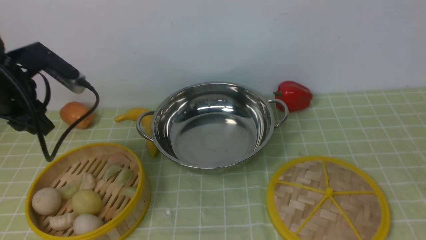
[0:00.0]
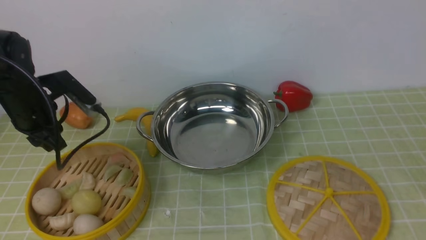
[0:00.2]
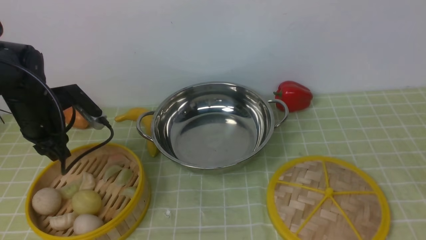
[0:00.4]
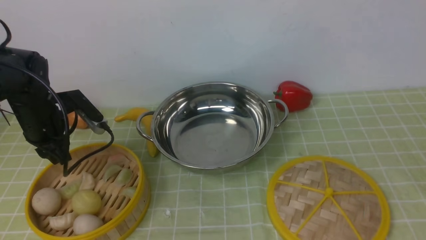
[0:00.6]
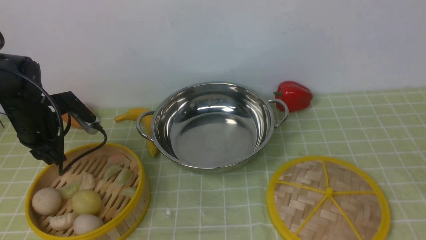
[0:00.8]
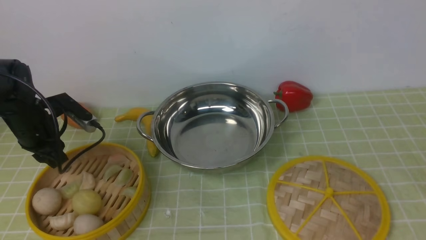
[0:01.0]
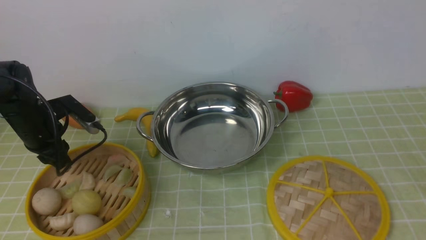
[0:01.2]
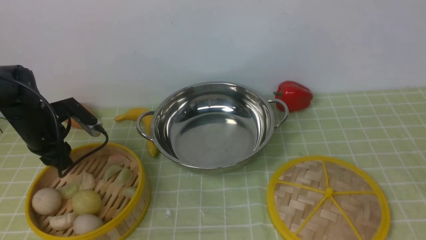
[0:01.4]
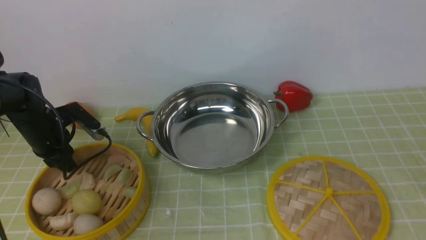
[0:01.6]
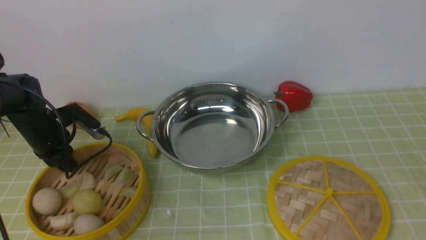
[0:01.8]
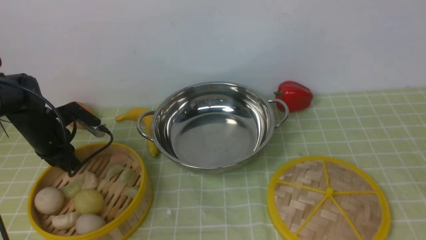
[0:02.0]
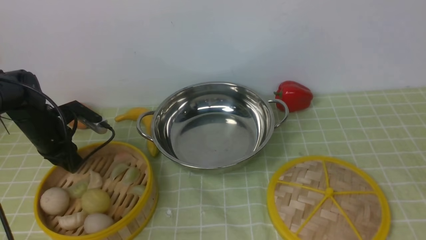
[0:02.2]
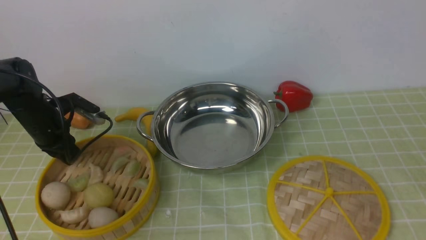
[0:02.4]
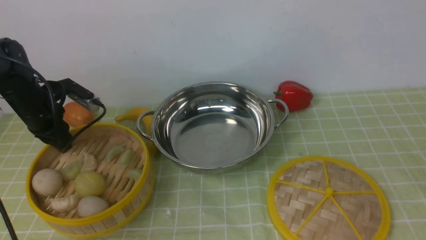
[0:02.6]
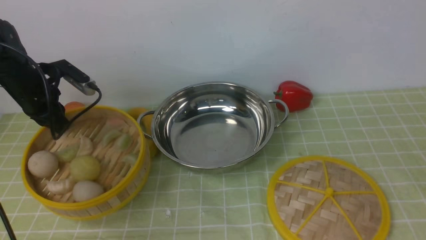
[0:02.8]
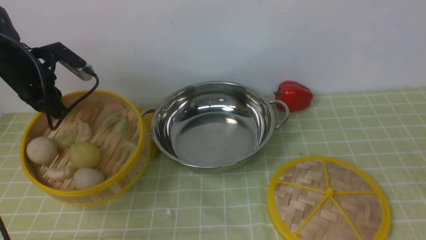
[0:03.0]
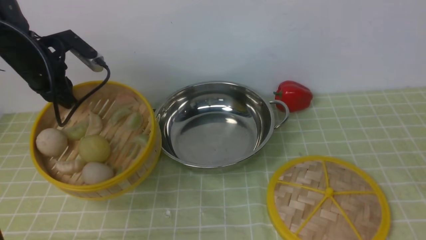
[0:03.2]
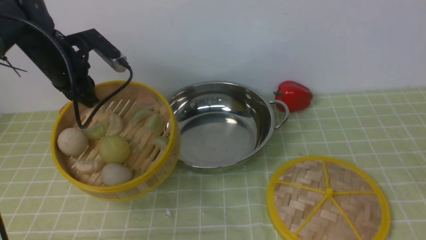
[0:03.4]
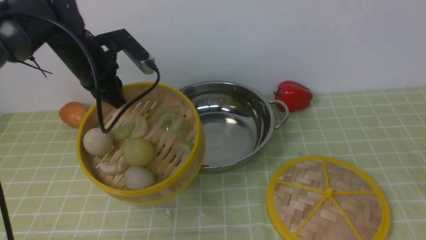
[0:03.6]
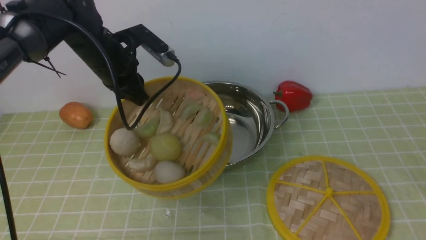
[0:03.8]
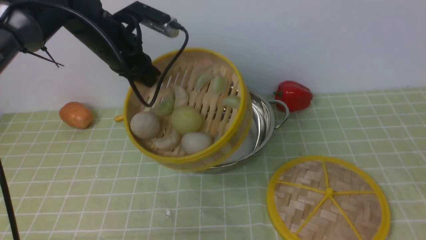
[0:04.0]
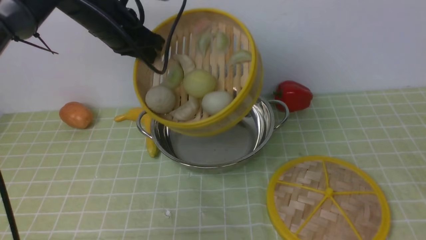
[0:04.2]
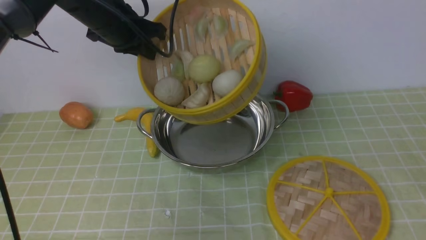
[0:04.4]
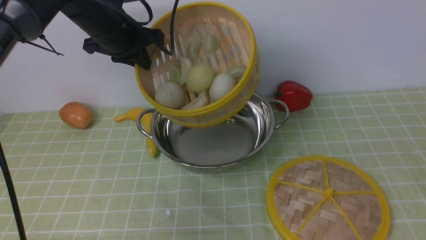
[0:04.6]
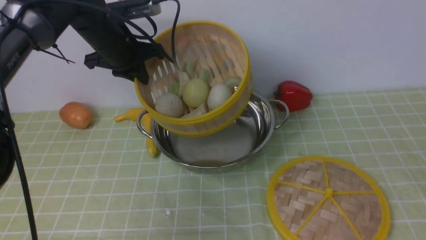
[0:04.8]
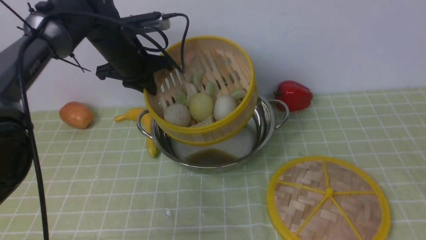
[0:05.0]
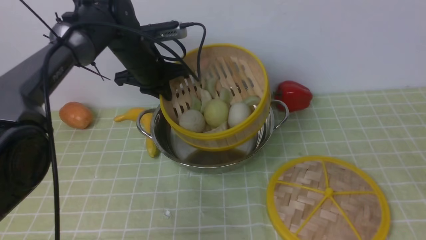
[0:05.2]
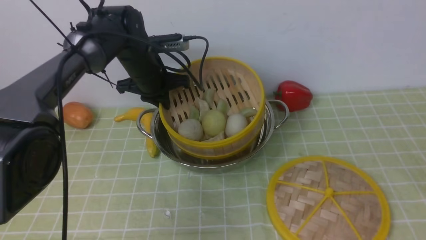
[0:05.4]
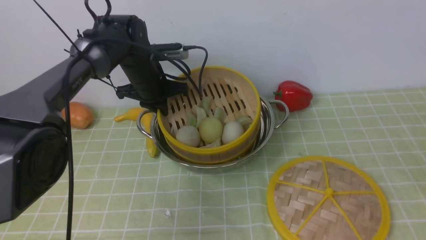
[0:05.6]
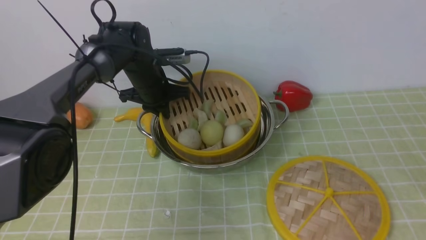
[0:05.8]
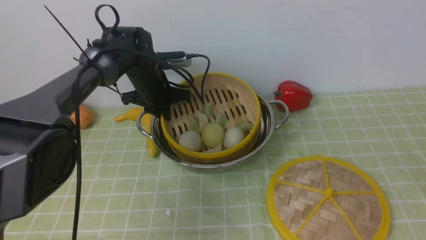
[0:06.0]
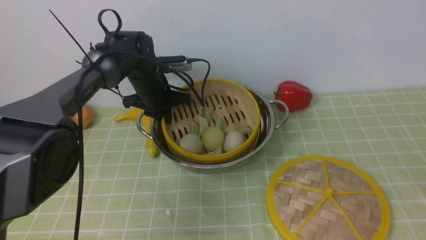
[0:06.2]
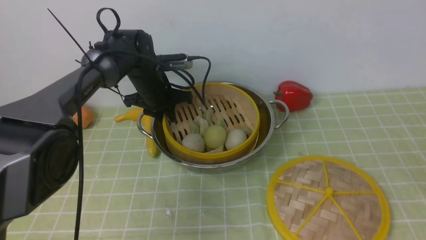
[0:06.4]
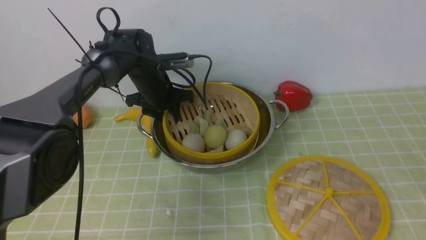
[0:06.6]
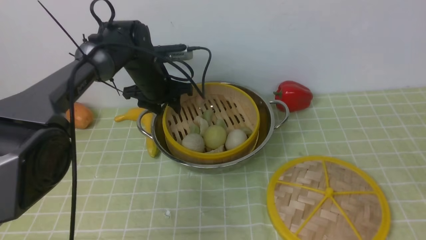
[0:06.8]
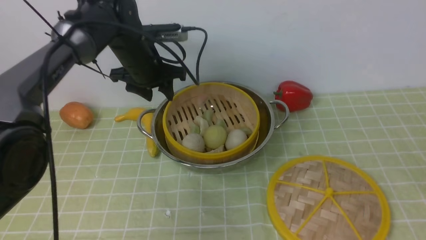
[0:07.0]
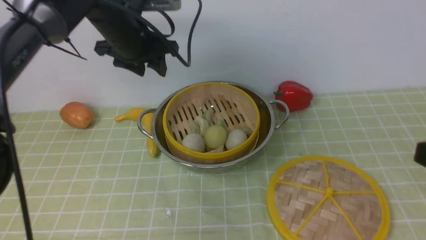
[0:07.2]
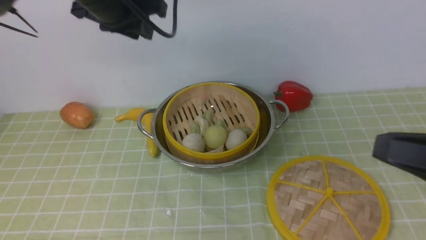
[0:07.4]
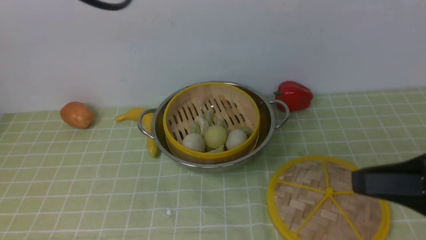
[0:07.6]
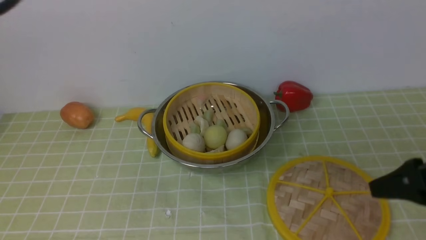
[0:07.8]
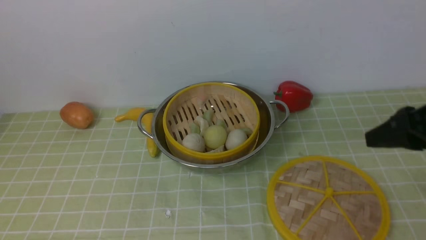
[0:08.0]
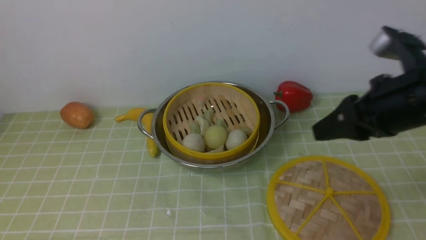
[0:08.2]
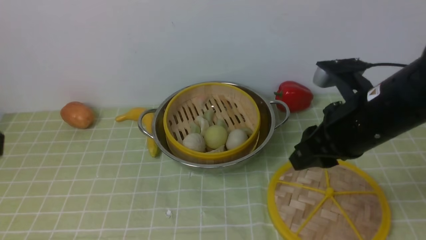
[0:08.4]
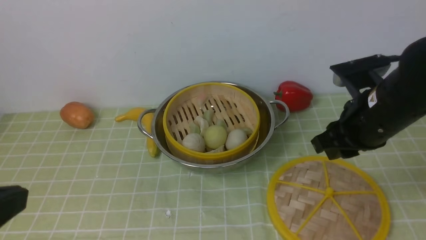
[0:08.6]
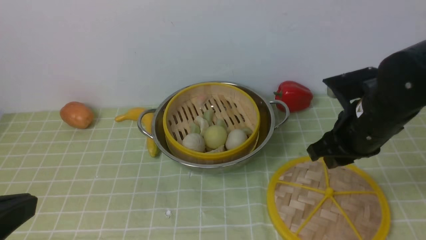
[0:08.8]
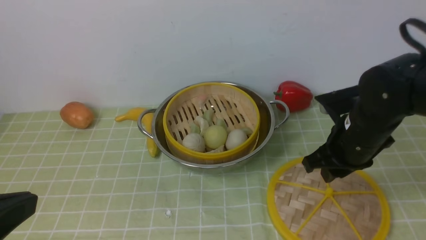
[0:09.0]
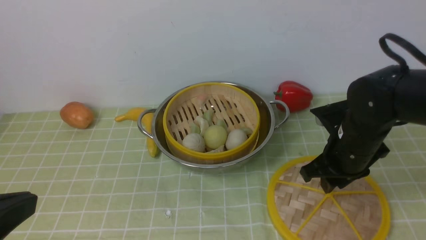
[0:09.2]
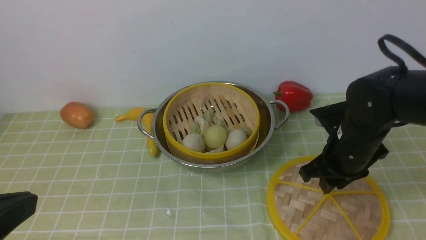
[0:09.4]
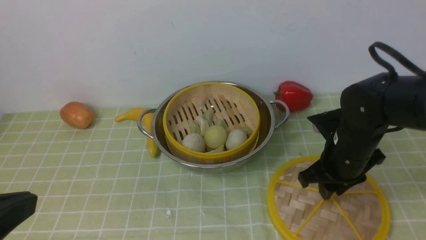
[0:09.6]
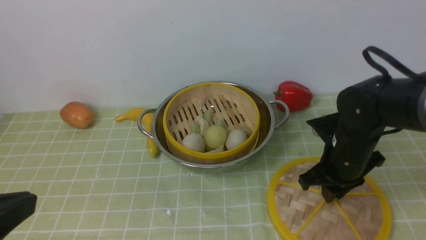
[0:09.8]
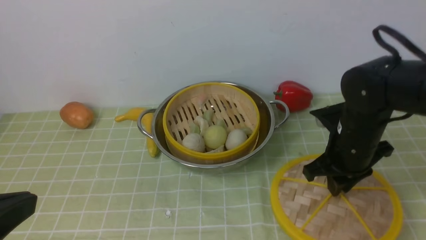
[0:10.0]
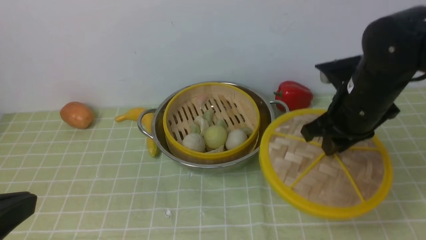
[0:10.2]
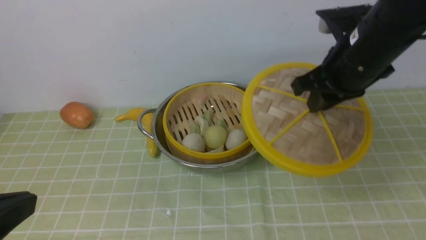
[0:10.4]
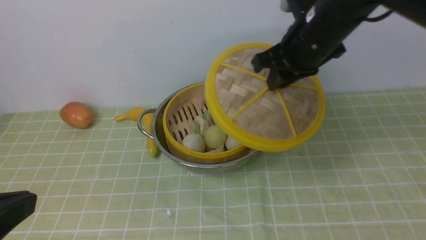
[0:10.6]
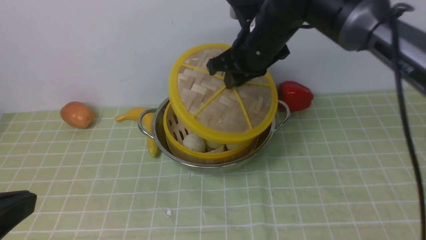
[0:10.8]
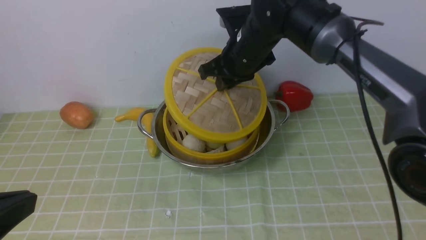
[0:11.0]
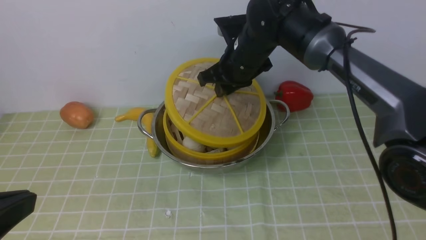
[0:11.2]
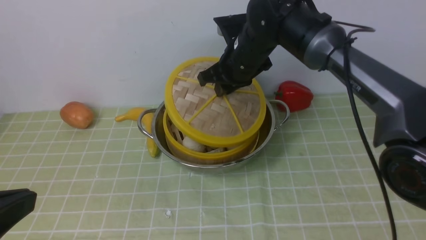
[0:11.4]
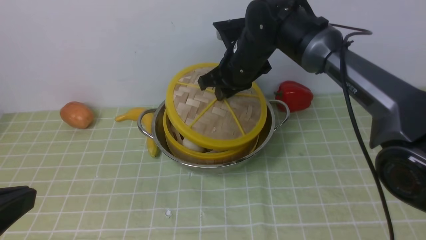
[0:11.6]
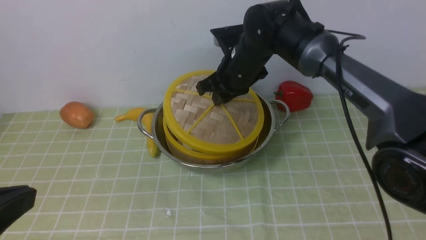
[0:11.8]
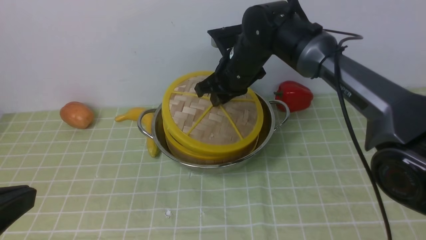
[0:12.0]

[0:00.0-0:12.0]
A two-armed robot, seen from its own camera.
Task of the whole recording: place the steamer in the pot on the green tablecloth, and put the lid on the steamer.
Step, 0:00.0 to 0:02.8: use the left arm to lift the steamer closest to it.
Step, 0:03.0 to 0:07.0: use the left arm to put the steamer into the iron steamer pot in the middle.
Step, 0:07.2 to 0:10.4: use the right arm to lift the lid of the steamer.
0:00.0 to 0:01.6: The left gripper travels downward by approximately 15 cm.
0:01.6 to 0:03.0: The left gripper moves upward, approximately 10 cm.
0:03.0 to 0:04.4: The left gripper travels to the right and upward by some 15 cm.
0:04.4 to 0:06.0: The left gripper goes approximately 15 cm downward.
0:06.0 to 0:07.6: The left gripper shifts some 35 cm upward and backward, and opens, then closes once more. Meanwhile the right gripper moves some 5 cm.
0:07.6 to 0:09.0: The left gripper goes some 30 cm backward and downward; the right gripper is displaced forward, downward and to the left by about 20 cm.
0:09.0 to 0:10.4: The right gripper heads upward, covering roughly 10 cm.
0:10.4 to 0:12.0: The right gripper shifts approximately 15 cm to the left, forward and downward.

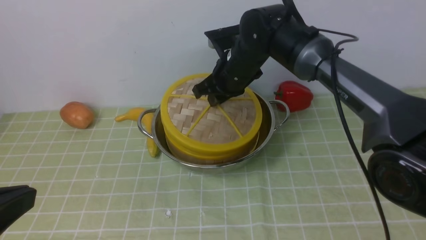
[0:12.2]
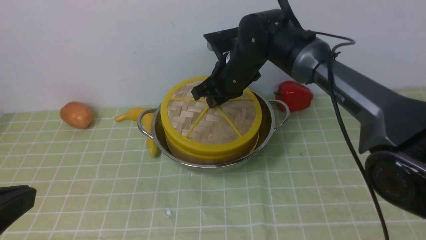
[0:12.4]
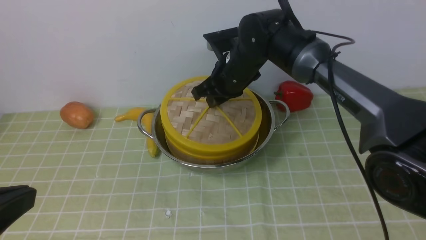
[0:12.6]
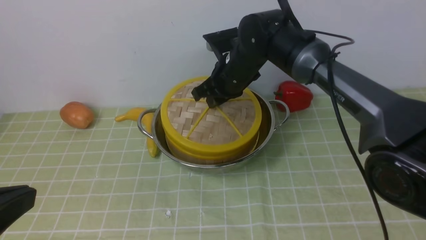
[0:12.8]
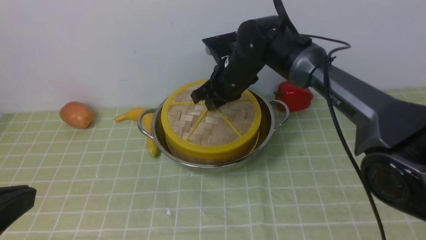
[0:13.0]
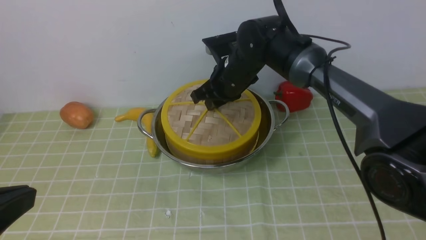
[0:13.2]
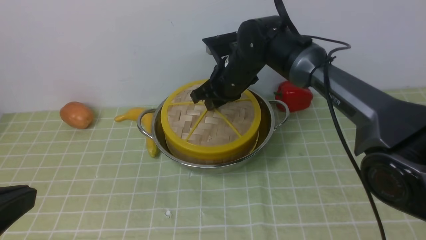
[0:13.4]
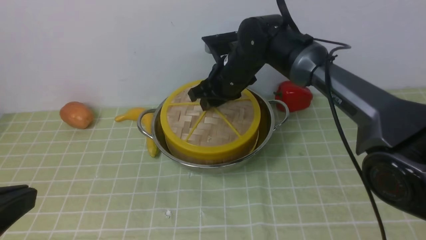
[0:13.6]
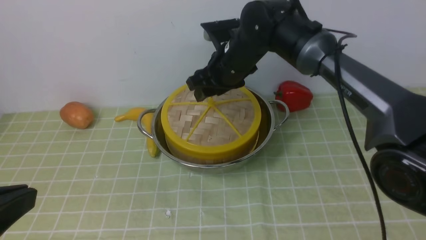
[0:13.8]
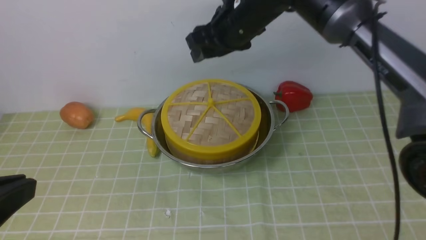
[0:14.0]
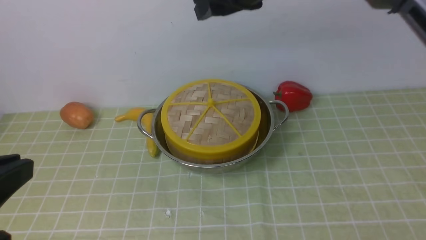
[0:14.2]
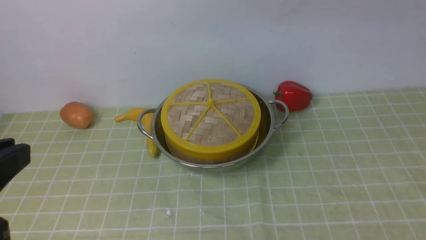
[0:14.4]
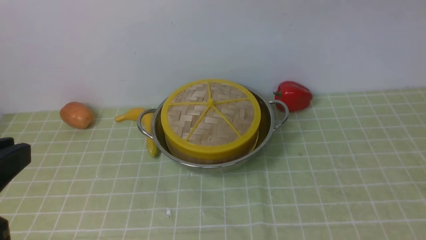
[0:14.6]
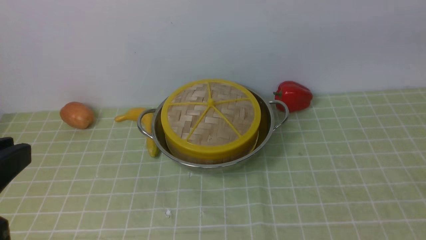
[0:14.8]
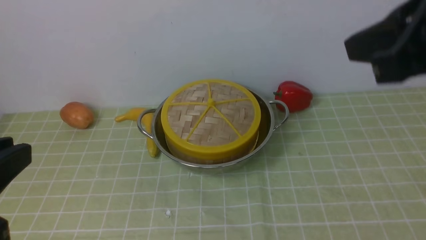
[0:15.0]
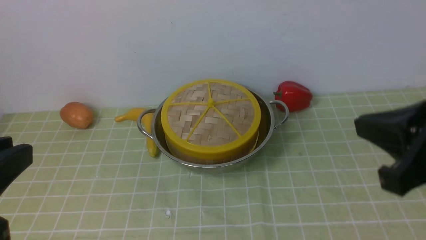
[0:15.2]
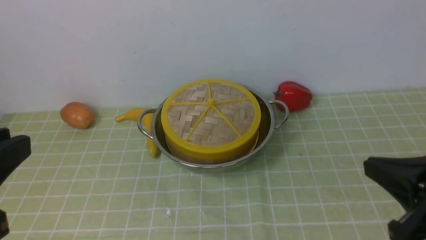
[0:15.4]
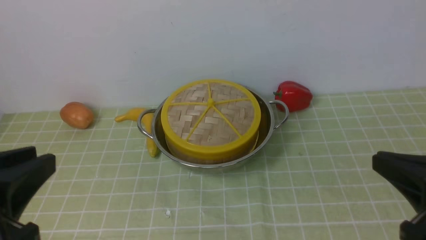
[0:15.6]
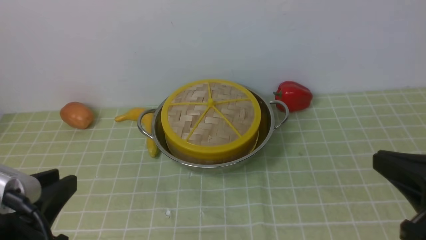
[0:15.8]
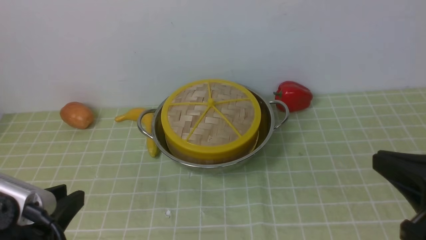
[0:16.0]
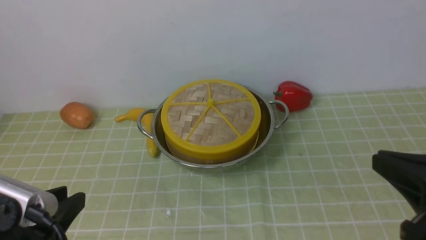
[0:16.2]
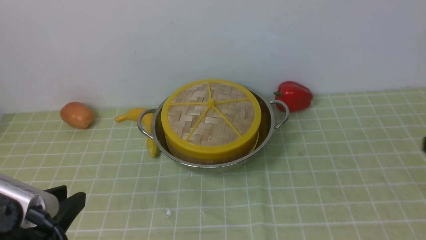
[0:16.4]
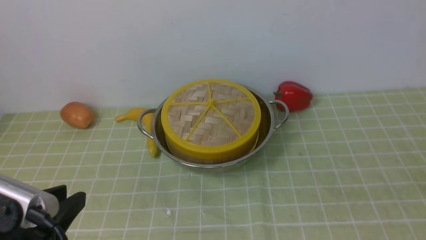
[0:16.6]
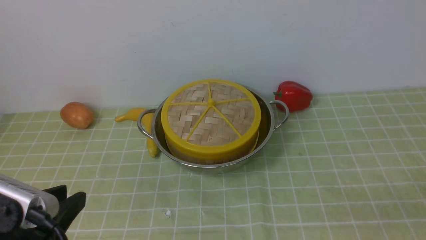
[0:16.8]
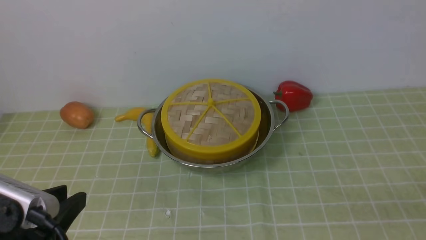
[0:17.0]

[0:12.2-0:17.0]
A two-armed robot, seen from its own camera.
Task of the whole recording: place the steamer in the pot on the green tablecloth, and put the lid on the steamer.
Step, 0:12.2 to 0:14.0: use the right arm to place the steamer lid on the steamer.
0:12.2 to 0:13.8: The right gripper opens.
0:13.8 to 0:15.4: The left gripper opens. The right gripper heads backward and to the right, covering some 35 cm, and closes its fingers.
0:15.4 to 0:17.0: The right gripper goes some 15 cm downward, to the right and backward, and opens its fingers; the left gripper is displaced downward by some 10 cm.
